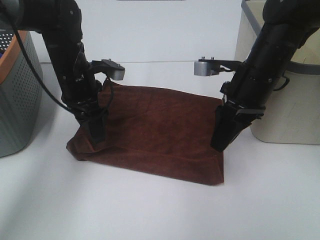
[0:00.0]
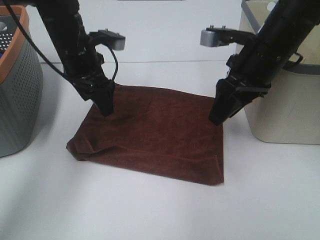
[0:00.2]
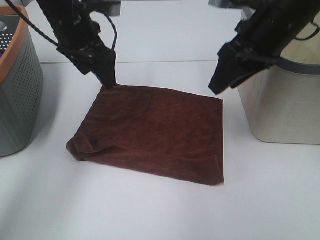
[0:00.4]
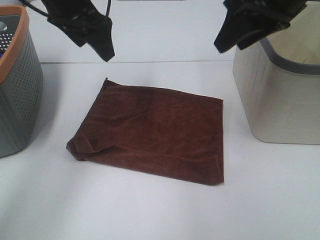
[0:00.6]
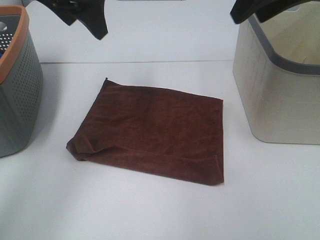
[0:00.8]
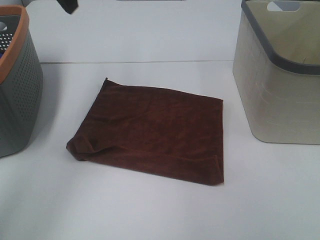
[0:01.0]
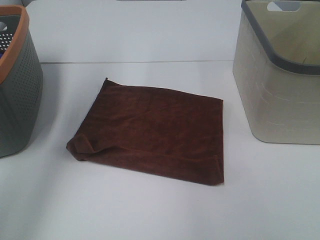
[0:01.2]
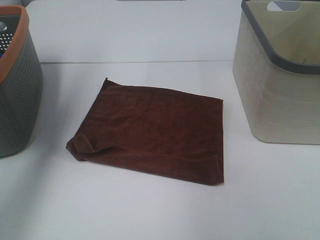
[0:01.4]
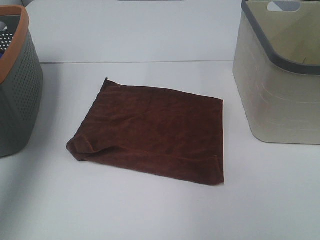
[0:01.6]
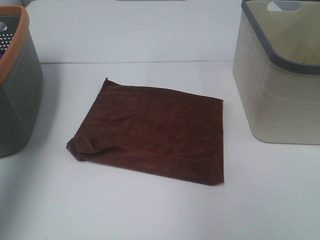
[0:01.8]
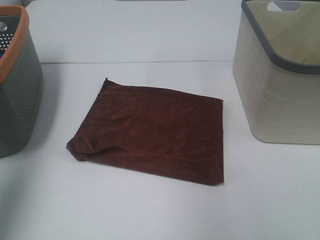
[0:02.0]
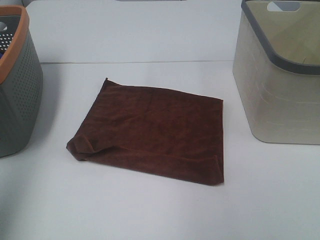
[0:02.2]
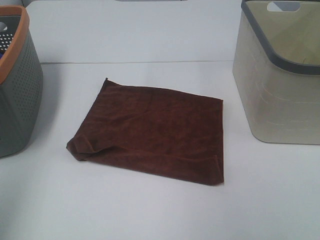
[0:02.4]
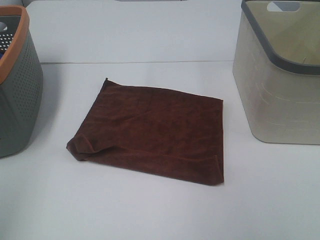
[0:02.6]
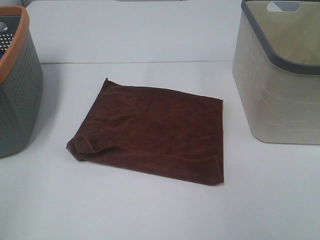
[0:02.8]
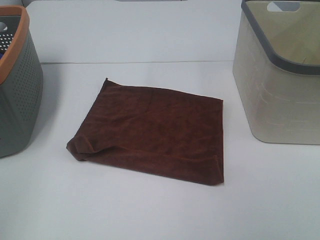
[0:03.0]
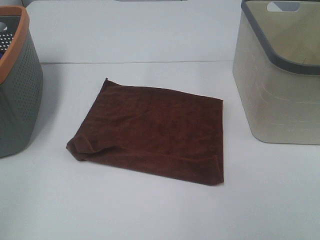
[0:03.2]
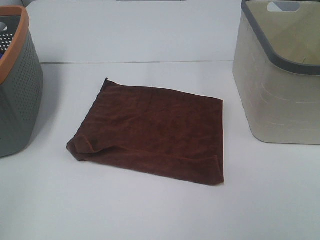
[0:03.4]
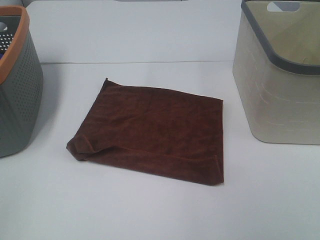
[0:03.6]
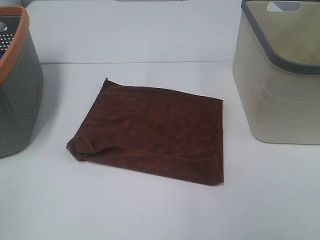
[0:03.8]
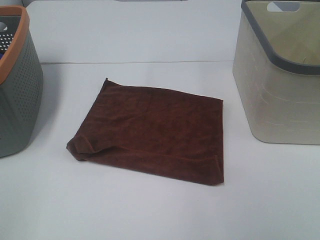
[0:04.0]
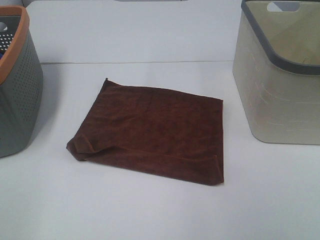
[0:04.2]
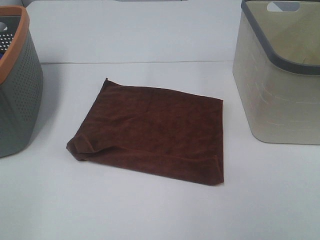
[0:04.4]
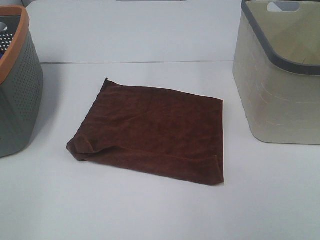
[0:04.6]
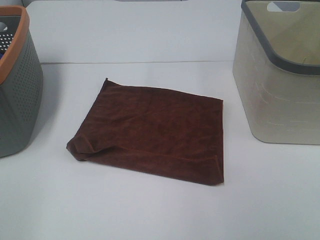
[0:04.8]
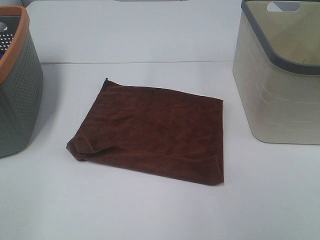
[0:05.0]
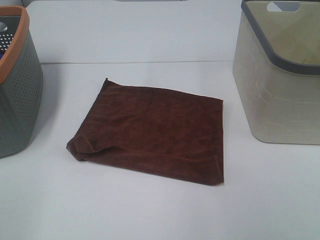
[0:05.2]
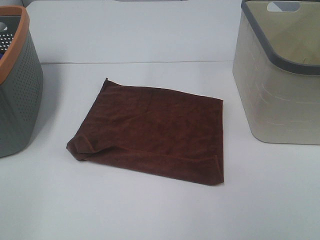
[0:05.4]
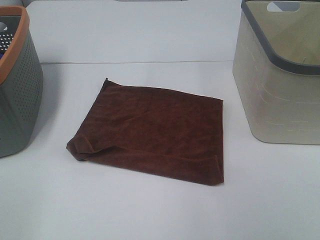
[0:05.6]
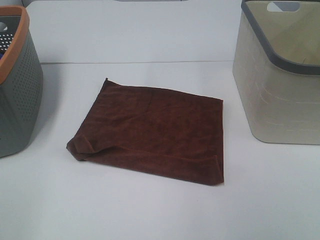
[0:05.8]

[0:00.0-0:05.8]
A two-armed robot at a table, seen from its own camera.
Task of the whole recording: Remove the towel and place it.
0:00.0 to 0:01.4: The left gripper shifts approximately 35 cm upward and to the left. The right gripper shifts about 30 cm upward and to the right.
0:01.4 to 0:02.8: The left gripper goes some 35 cm backward.
0:04.4 to 0:05.8: The two grippers keep their place.

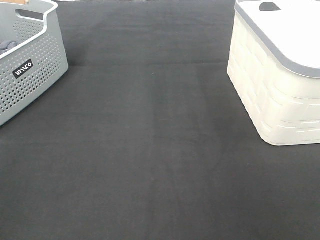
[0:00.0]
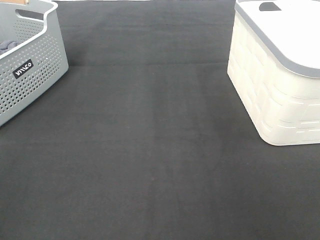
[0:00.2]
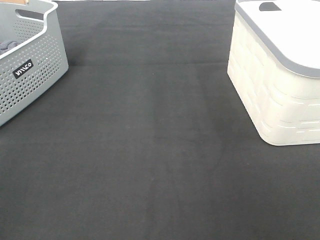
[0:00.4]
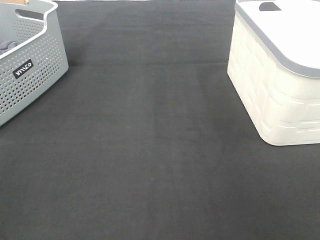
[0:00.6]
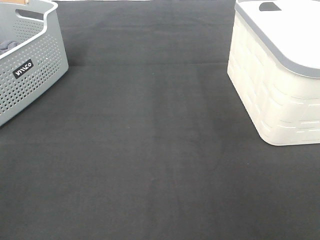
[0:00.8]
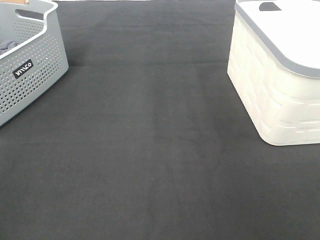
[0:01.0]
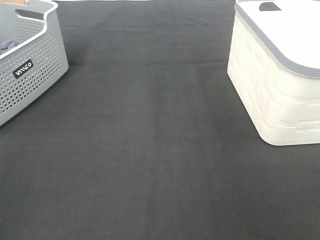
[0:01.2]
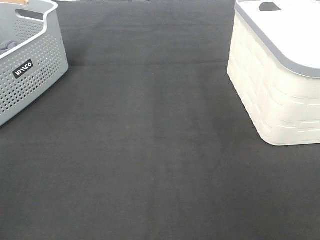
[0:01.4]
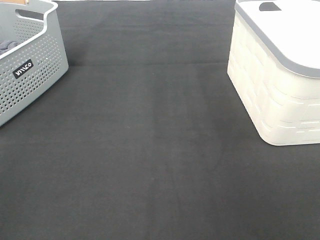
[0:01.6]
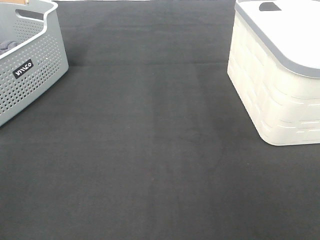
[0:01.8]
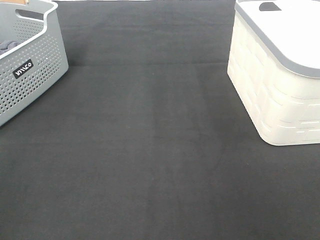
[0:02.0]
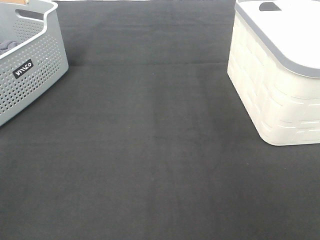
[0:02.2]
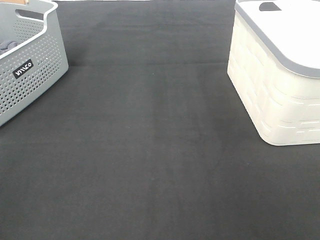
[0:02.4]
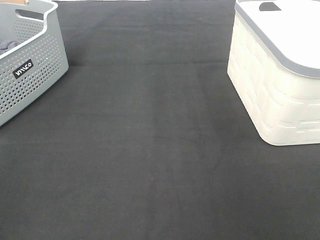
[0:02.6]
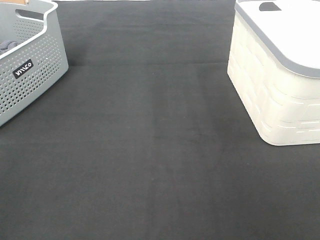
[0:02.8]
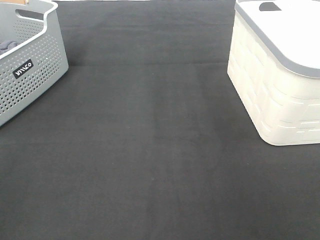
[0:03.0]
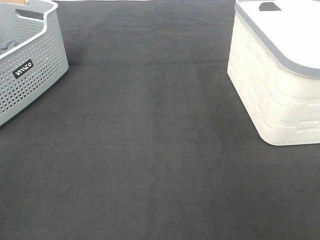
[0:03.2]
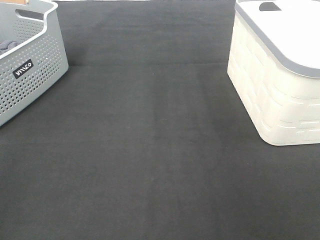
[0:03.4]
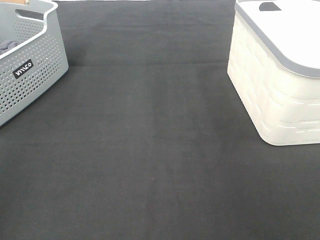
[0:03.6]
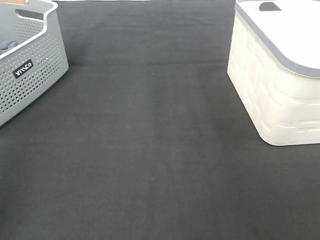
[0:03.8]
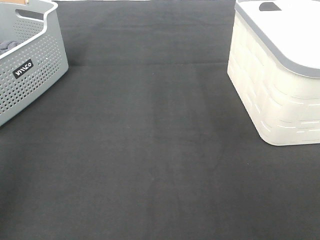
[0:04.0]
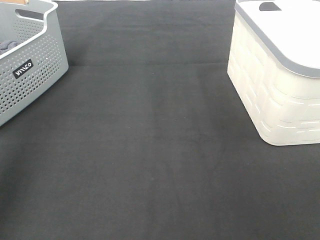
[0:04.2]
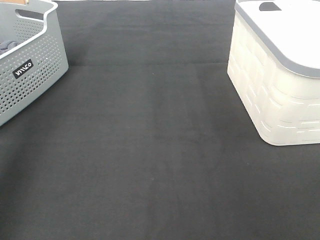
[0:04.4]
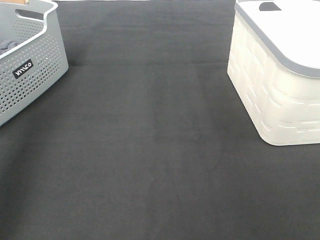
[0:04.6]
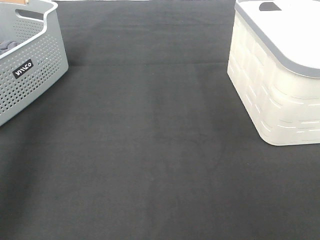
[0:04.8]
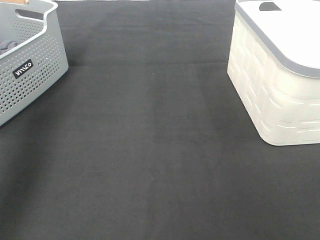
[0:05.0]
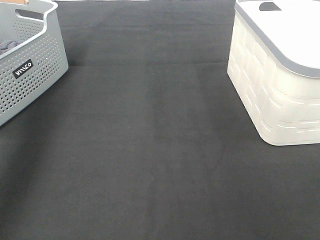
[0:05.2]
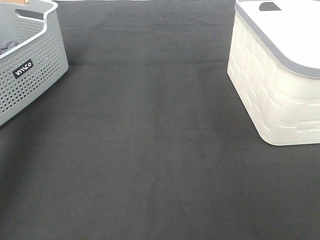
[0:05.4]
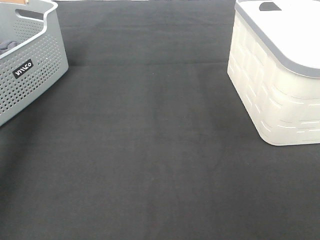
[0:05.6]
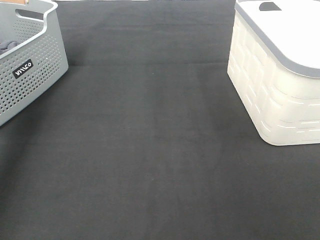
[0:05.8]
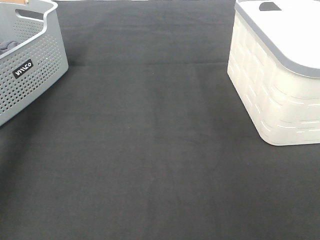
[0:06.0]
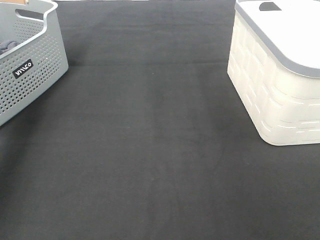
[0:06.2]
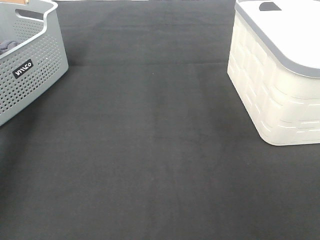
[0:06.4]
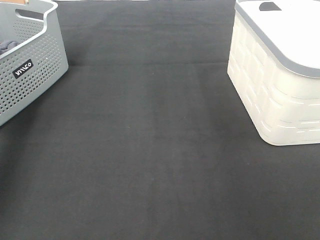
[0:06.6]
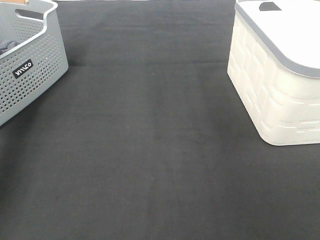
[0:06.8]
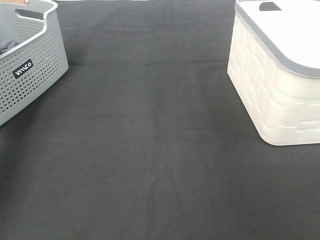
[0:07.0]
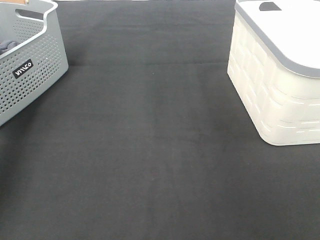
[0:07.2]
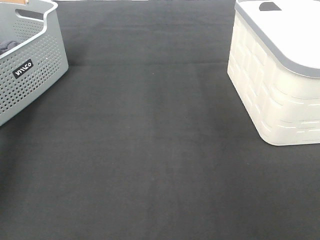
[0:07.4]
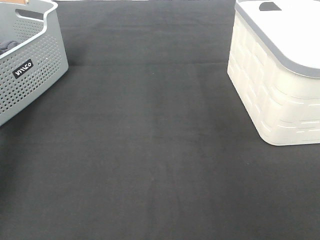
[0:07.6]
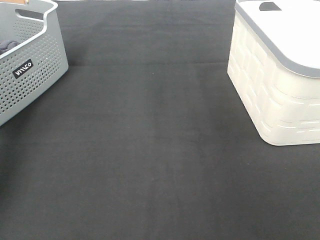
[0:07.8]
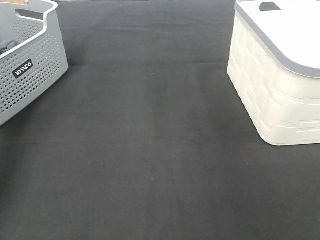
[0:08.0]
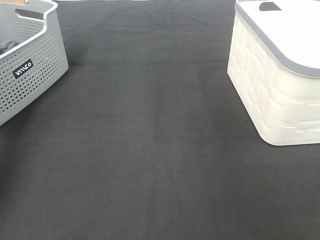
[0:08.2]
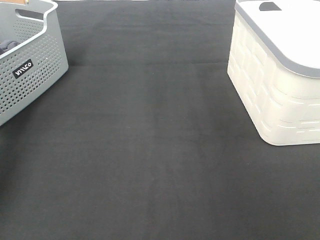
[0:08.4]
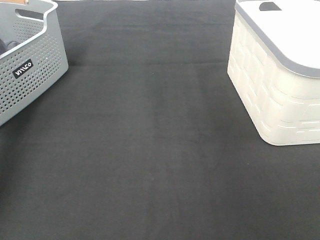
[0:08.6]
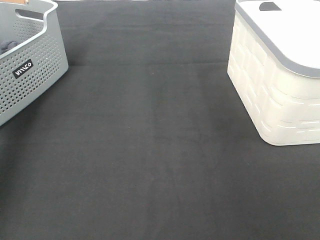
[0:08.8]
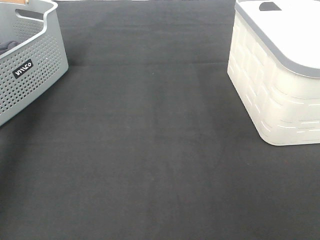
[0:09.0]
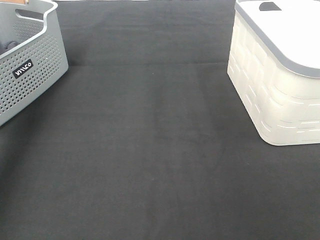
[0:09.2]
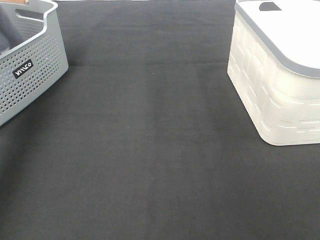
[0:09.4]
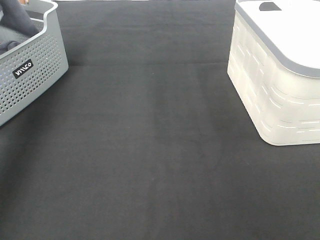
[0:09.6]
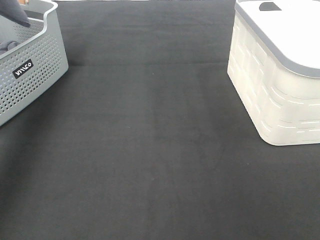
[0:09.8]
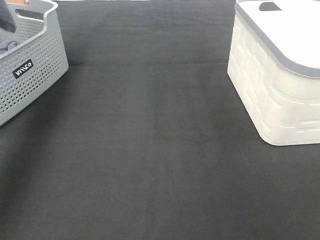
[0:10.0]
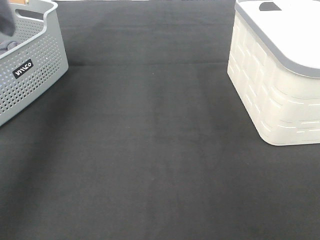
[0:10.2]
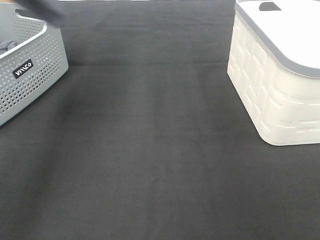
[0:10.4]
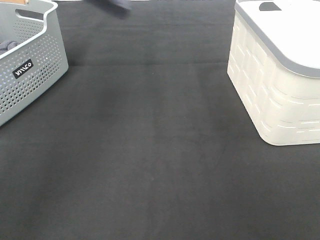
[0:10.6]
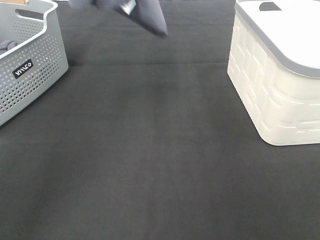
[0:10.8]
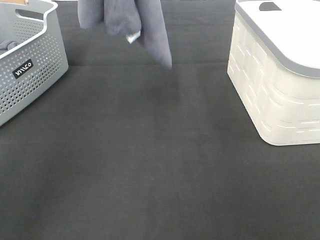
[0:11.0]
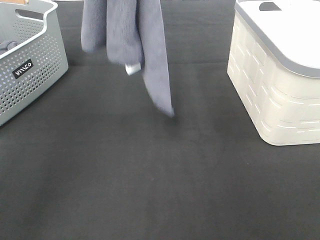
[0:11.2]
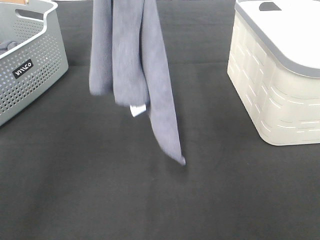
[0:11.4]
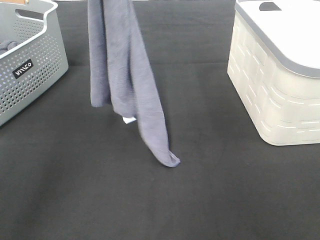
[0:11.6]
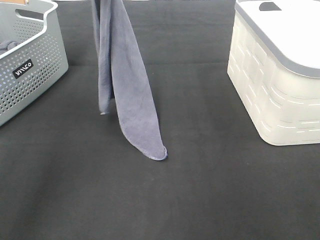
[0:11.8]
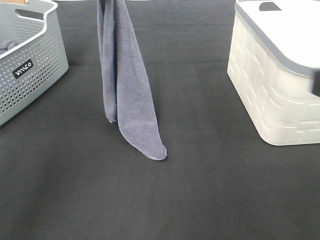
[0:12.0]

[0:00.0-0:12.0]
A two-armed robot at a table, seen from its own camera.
Task of the whole recording: Remove the towel and place it.
0:00.0 to 0:03.0: Both grippers stay put.
0:03.0 to 0:04.4: The left gripper goes roughly 20 cm forward.
0:09.0 to 0:10.4: The left gripper heads upward, to the right and backward, covering about 30 cm.
0:10.4 to 0:12.0: The left gripper shifts some 20 cm downward, while the right gripper goes some 10 cm forward and to the left.

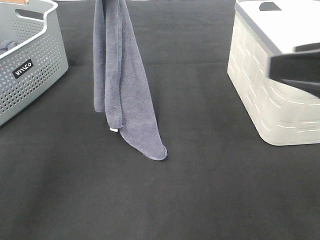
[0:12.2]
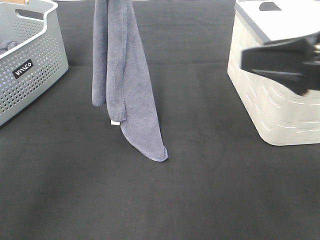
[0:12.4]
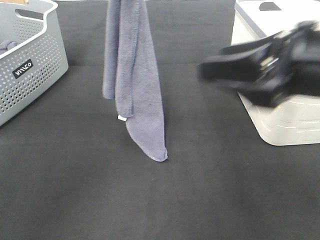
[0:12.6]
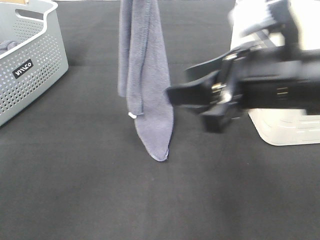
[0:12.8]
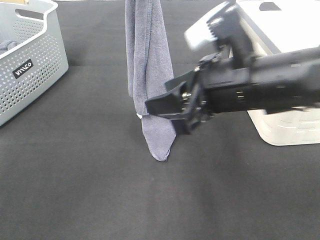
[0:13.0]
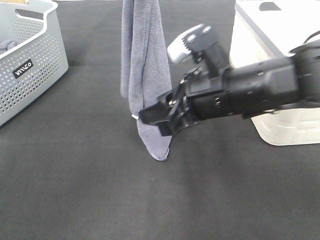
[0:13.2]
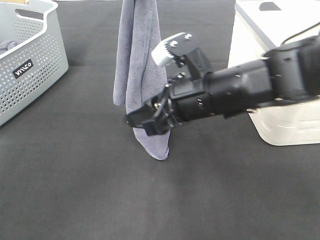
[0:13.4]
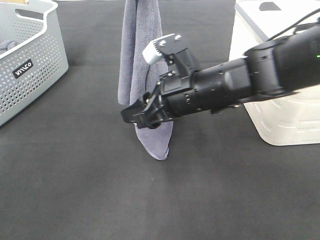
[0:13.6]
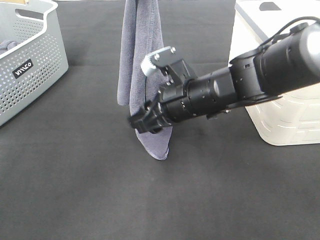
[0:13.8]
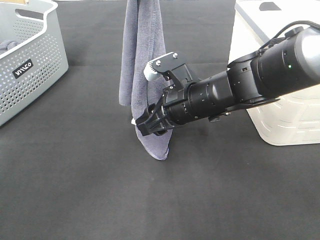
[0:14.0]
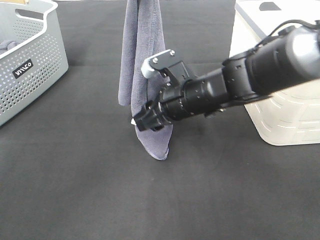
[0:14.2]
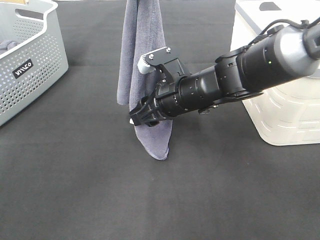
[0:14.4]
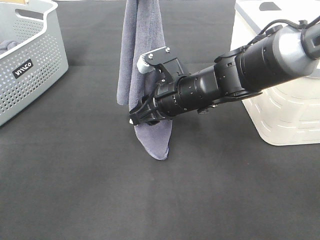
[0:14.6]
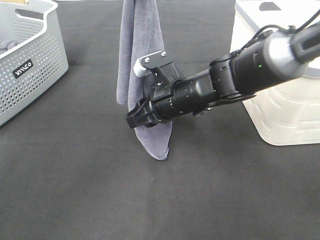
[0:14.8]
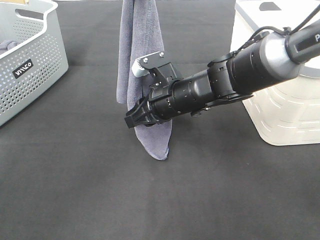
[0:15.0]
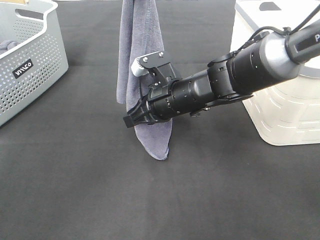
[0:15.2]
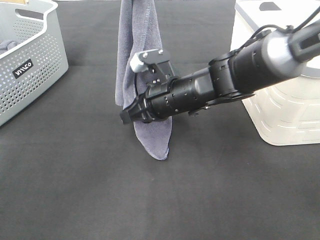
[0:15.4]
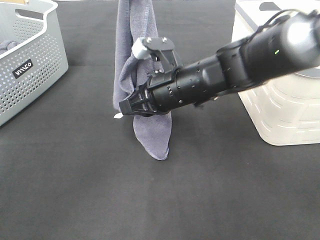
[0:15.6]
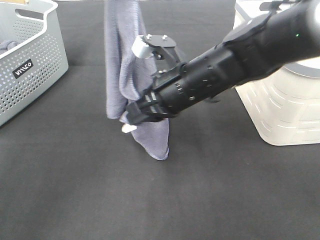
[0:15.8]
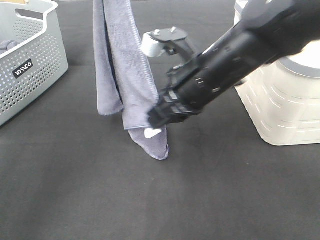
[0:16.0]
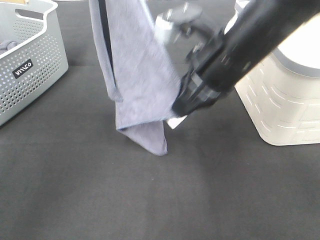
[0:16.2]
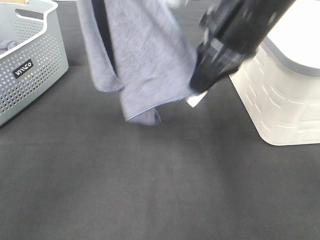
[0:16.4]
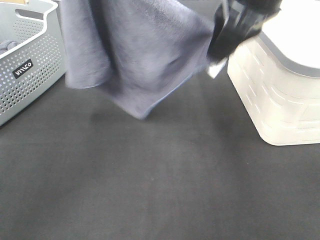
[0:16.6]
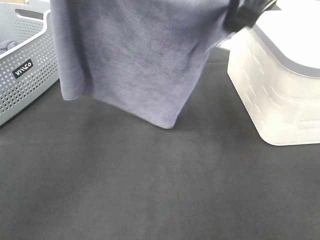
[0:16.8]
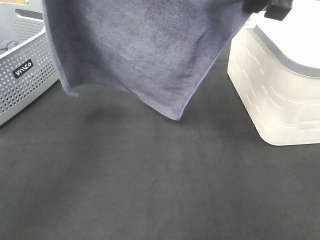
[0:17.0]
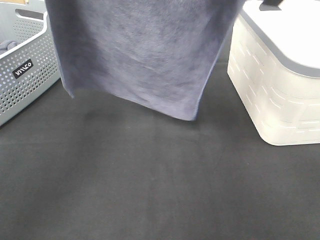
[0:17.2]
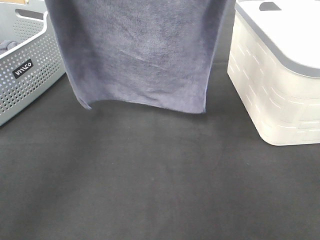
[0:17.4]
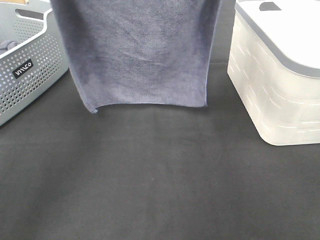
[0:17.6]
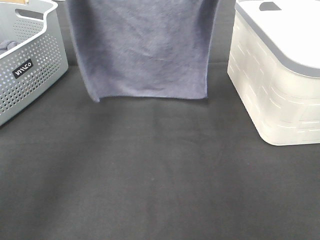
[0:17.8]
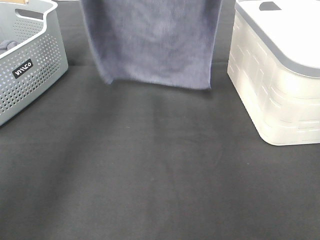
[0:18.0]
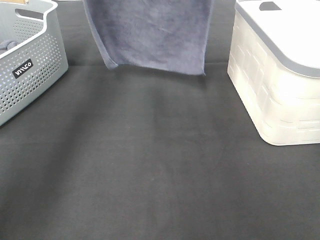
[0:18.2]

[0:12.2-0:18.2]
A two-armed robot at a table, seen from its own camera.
Task of the whole recording: Remove the towel and place it.
Step, 0:13.6 to 0:16.6: Left hand: spread the grey towel flat on the table.
Step, 0:13.6 to 0:16.6: Right hand: spread the grey towel flat on the table.
0:12.2 to 0:13.8: The right gripper shifts some 25 cm downward, forward and to the left. Meanwhile the left gripper moves to the right, about 5 cm.
0:13.8 to 0:15.2: The right gripper closes.
0:15.2 to 0:16.6: The right gripper travels upward by roughly 25 cm, while the left gripper shifts some 5 cm to the left.
0:16.6 to 0:18.2: The left gripper is displaced forward and downward by about 20 cm. Meanwhile the right gripper heads forward, covering roughly 15 cm.
